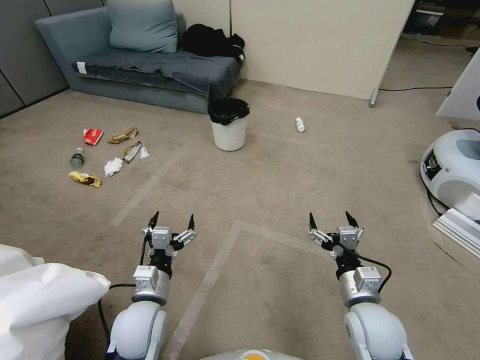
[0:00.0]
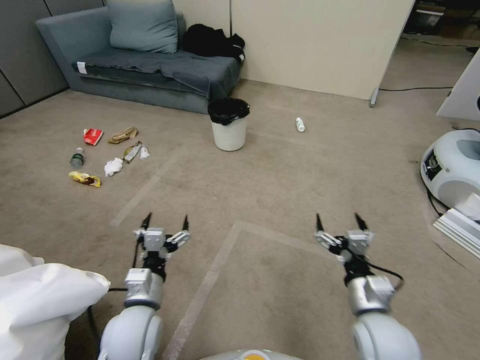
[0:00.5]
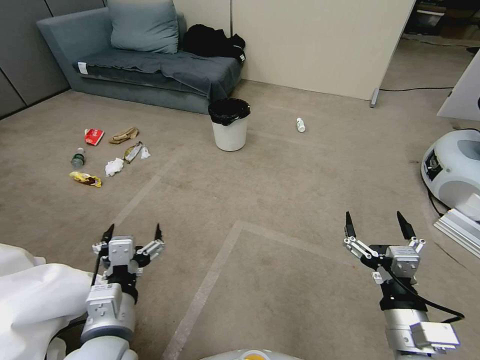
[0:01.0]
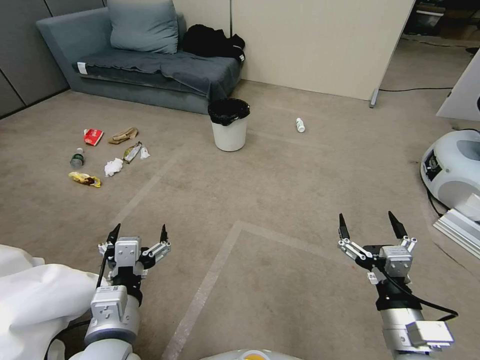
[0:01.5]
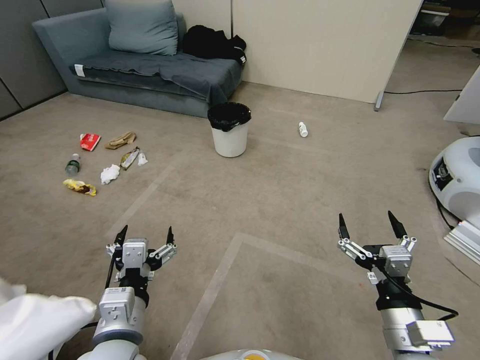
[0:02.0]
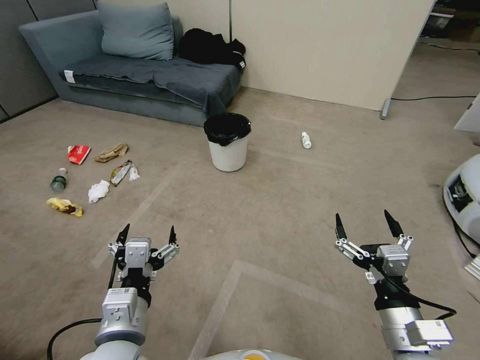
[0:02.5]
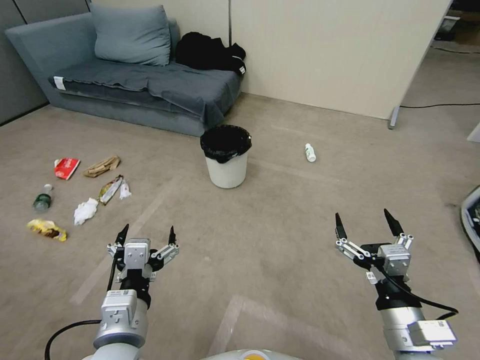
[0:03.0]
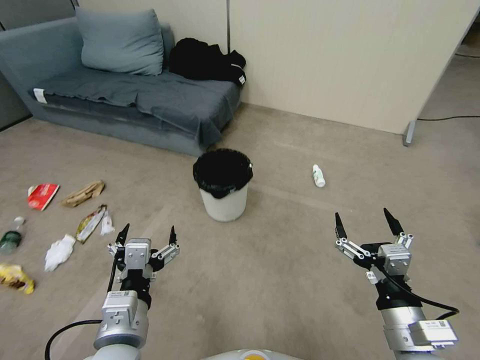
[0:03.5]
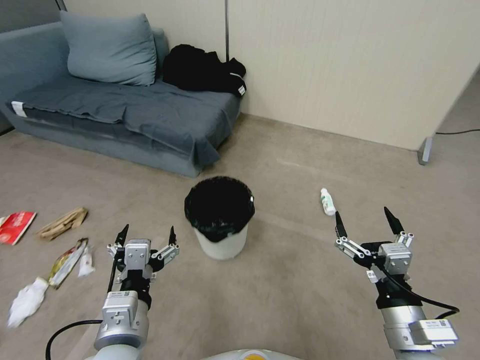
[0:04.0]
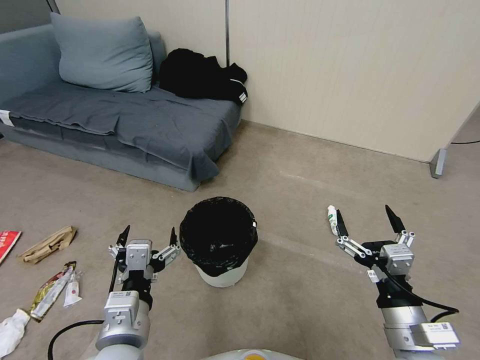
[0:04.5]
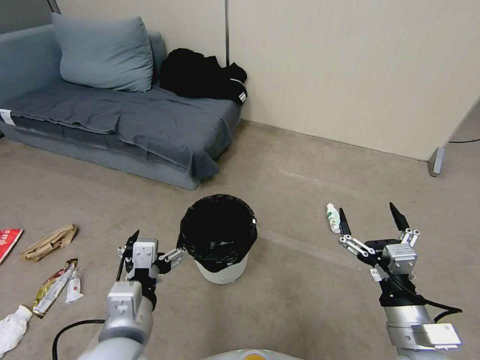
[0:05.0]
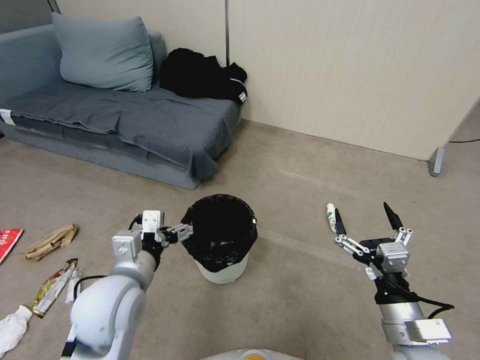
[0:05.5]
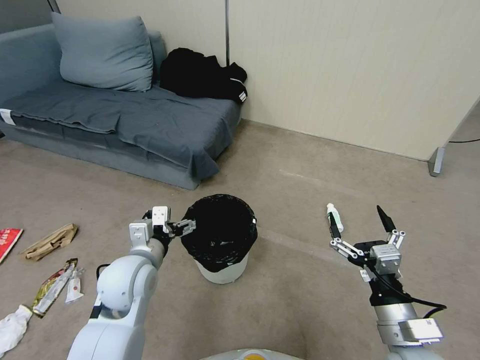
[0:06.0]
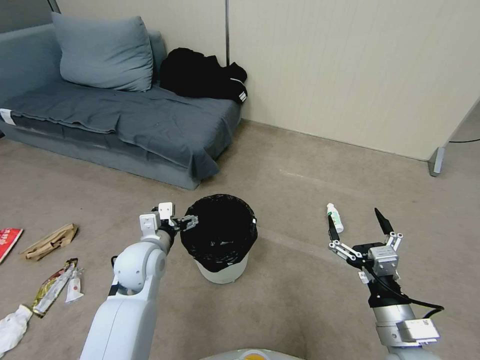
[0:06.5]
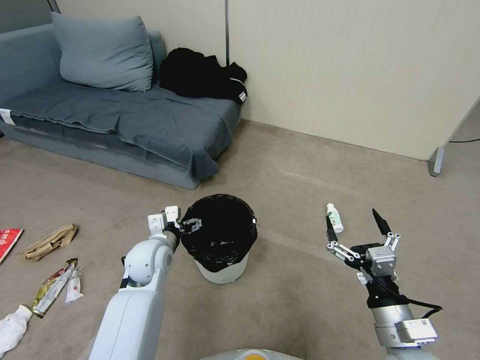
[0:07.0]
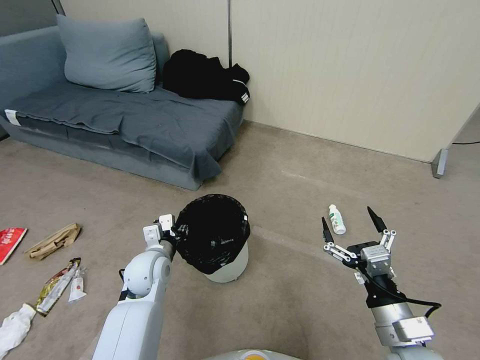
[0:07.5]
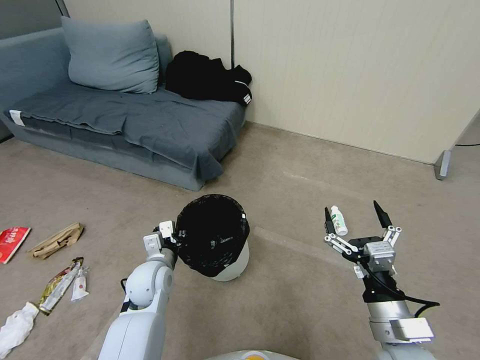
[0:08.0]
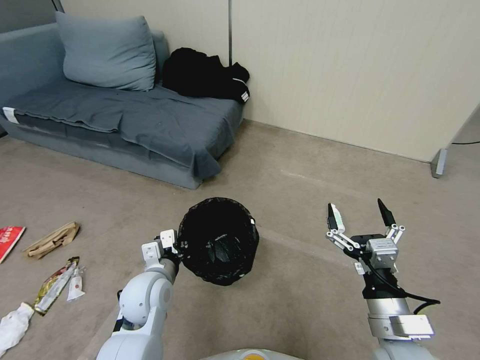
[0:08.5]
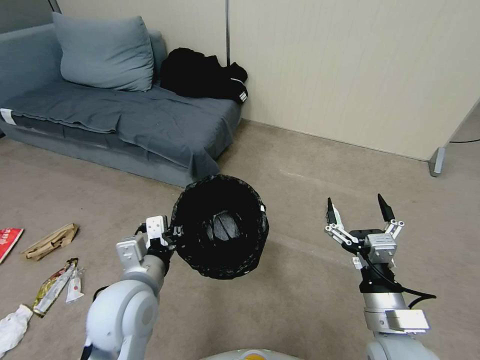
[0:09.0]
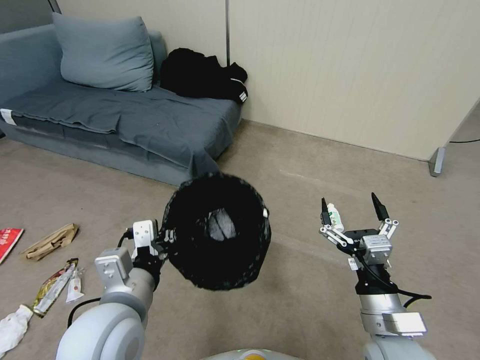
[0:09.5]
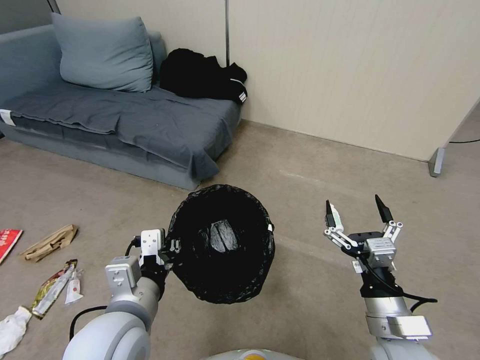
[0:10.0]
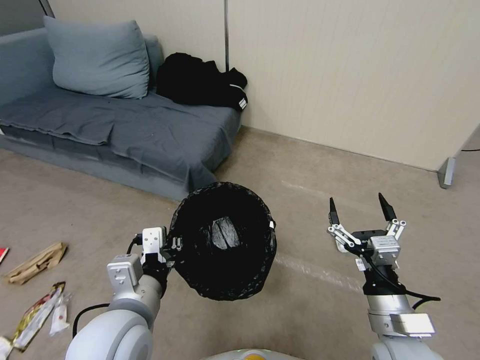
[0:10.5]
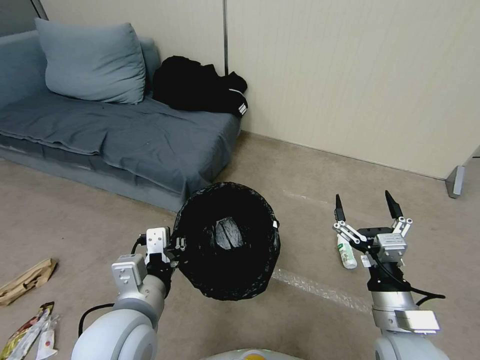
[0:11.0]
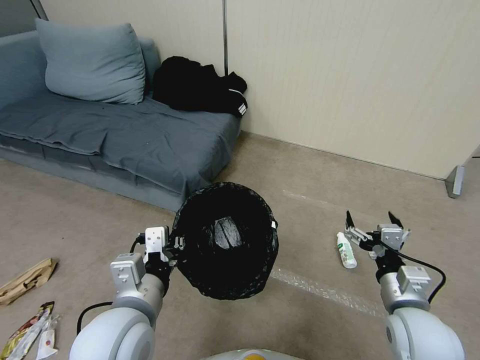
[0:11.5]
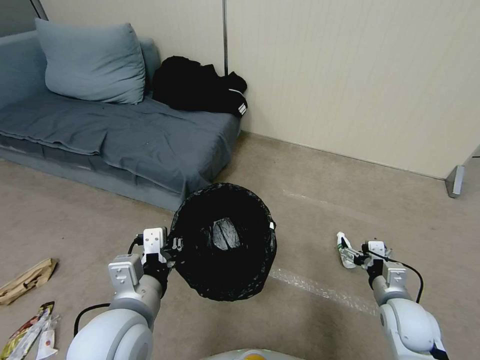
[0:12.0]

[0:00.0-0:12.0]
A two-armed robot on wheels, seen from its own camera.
Task of the whole recording: Pick up the trash bin, then pick up the garbage from the floor and place it into the trash bin.
0:04.0 to 0:06.0: The left gripper shifts about 15 cm forward.
0:06.0 to 0:08.0: The left gripper goes approximately 10 cm downward, and closes up.
0:08.0 to 0:10.0: The left gripper is displaced upward and backward by roughly 25 cm.
0:10.0 to 0:12.0: The right gripper is displaced downward, to the right and forward by some 15 cm.

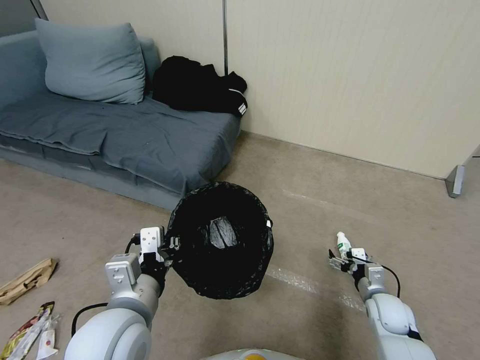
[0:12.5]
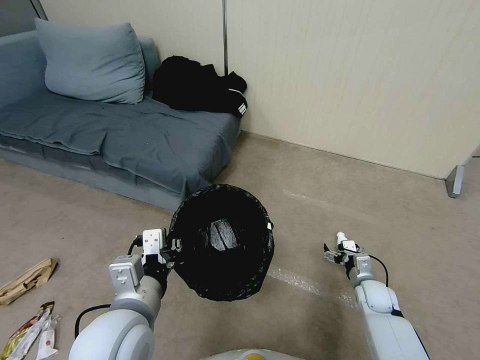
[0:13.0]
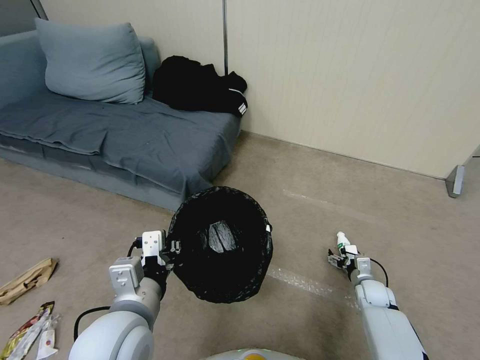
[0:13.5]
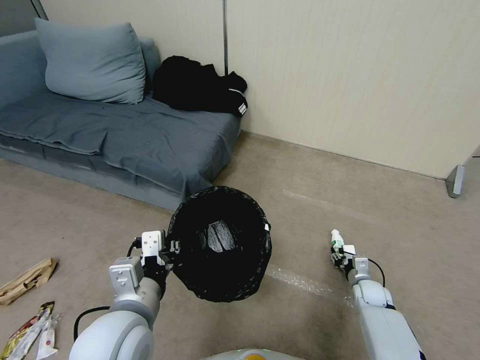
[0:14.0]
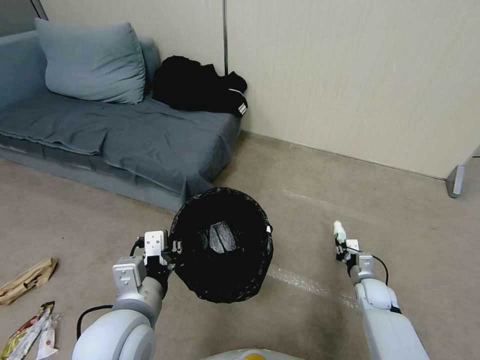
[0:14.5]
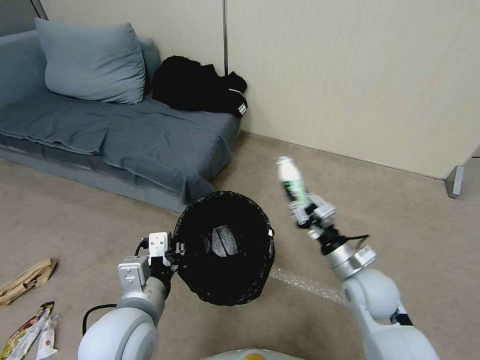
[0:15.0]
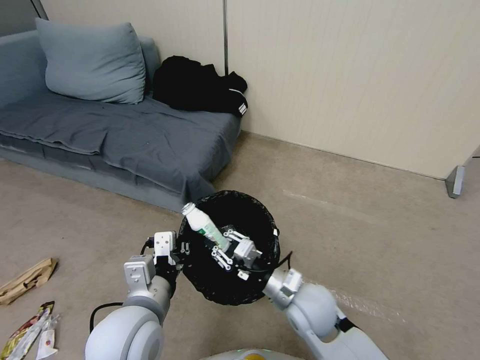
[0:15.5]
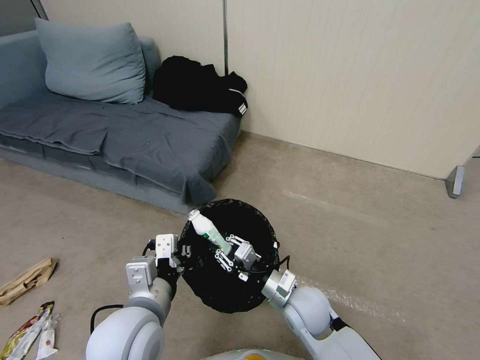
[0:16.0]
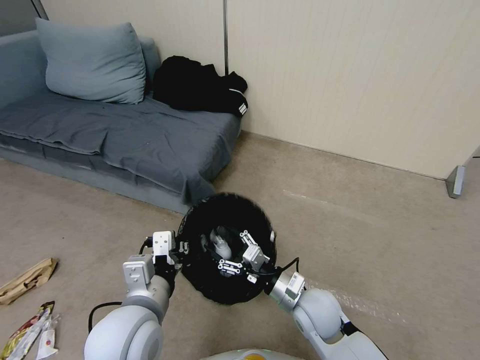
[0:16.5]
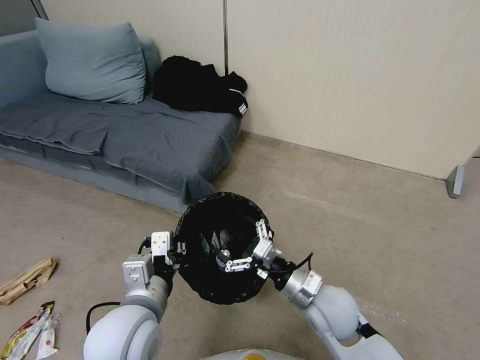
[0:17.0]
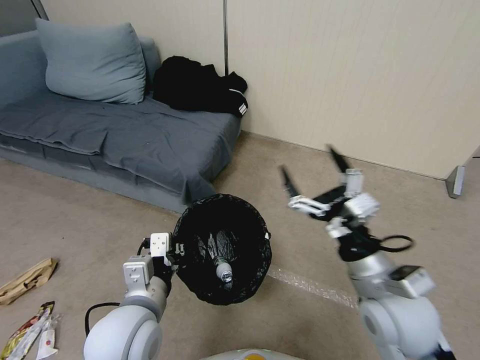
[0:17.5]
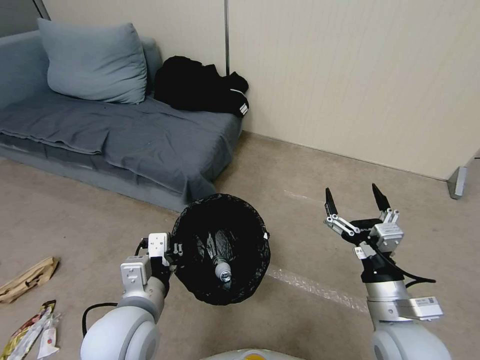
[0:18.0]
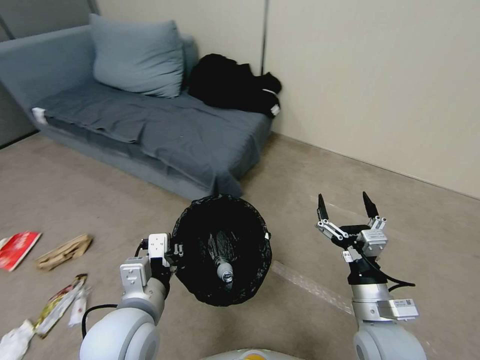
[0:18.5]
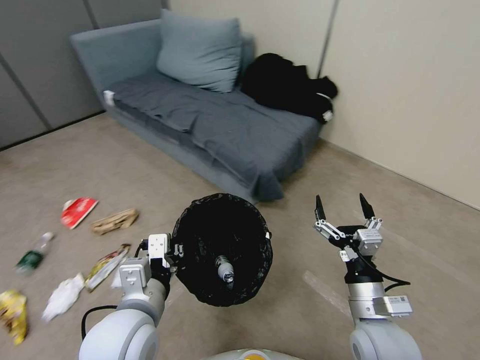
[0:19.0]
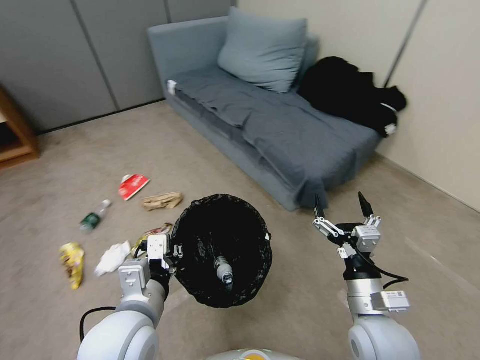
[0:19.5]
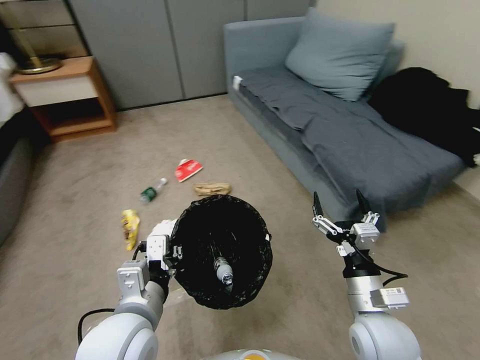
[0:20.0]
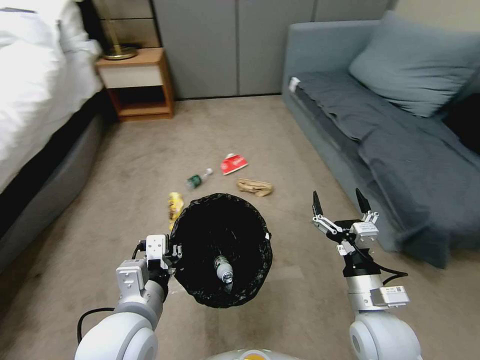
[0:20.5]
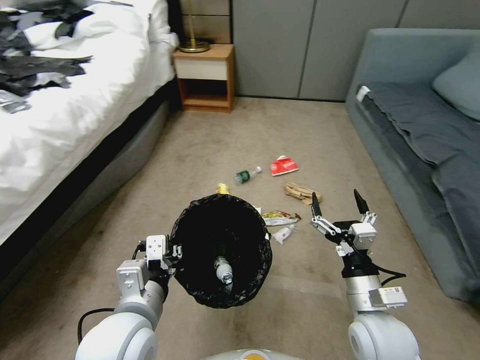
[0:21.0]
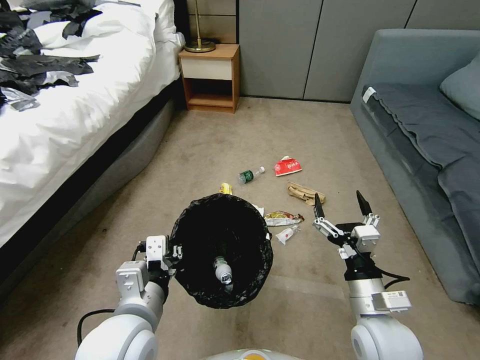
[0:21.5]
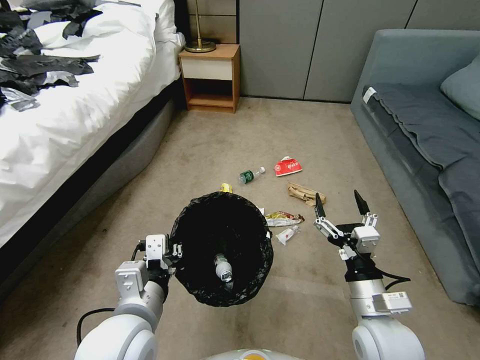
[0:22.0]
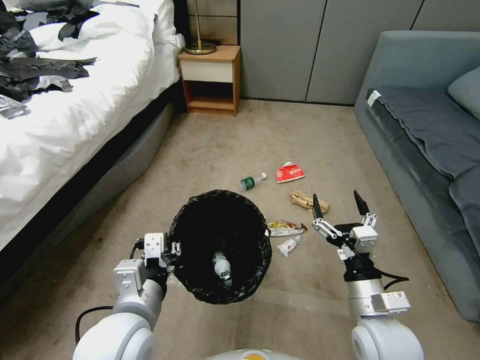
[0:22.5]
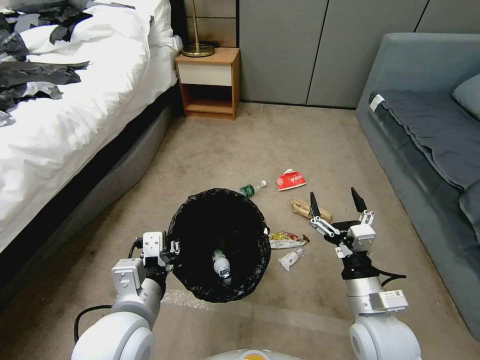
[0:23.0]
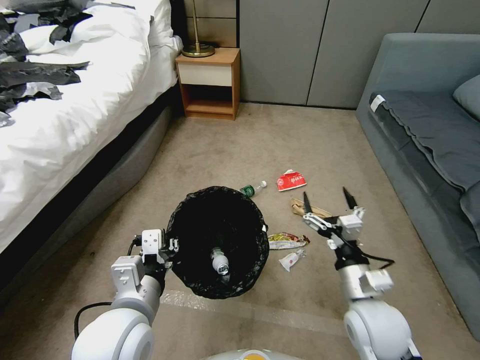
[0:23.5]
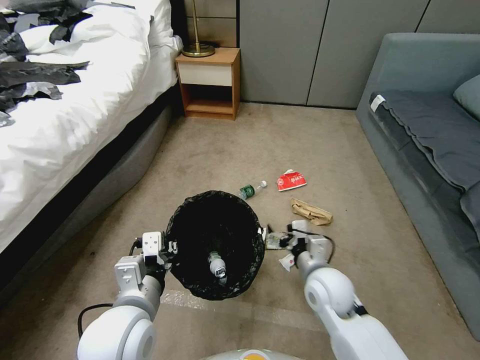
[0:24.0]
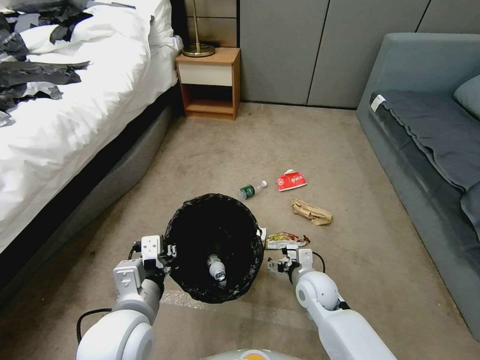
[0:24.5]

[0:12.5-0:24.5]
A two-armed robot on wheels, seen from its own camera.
Task of the whole recording: Pick up the trash bin, then pick up the garbage from the floor and place it into the trash bin.
0:12.5 to 0:14.5: The right gripper moves forward, roughly 5 cm, and closes up.
0:14.5 to 0:16.5: The right gripper shifts some 25 cm to the left and upward, and opens its fingers.
0:16.5 to 0:18.5: The right gripper heads to the right, upward and backward, covering roughly 15 cm, and opens.
0:22.5 to 0:24.5: The right gripper is displaced downward, forward and to the left by approximately 20 cm.

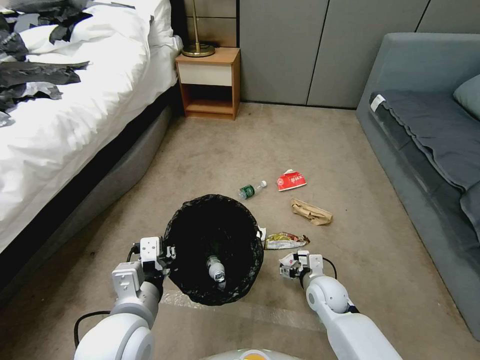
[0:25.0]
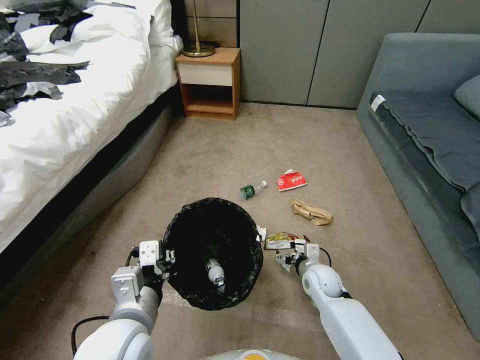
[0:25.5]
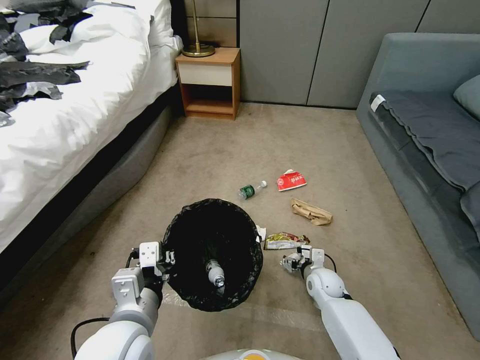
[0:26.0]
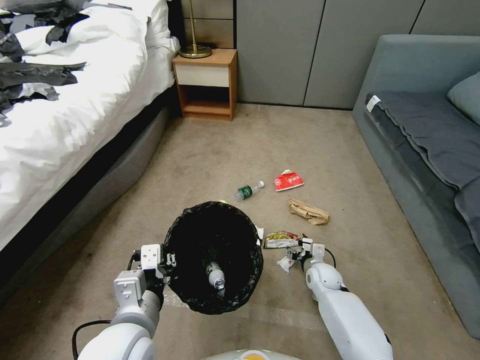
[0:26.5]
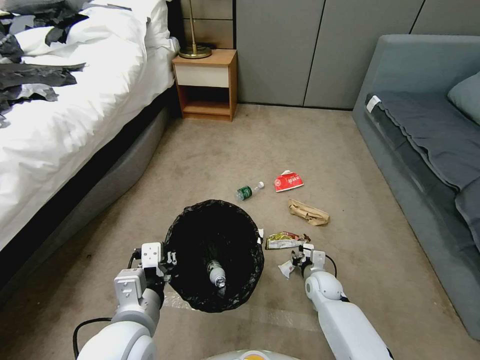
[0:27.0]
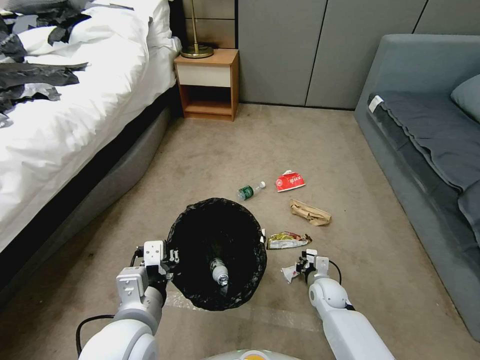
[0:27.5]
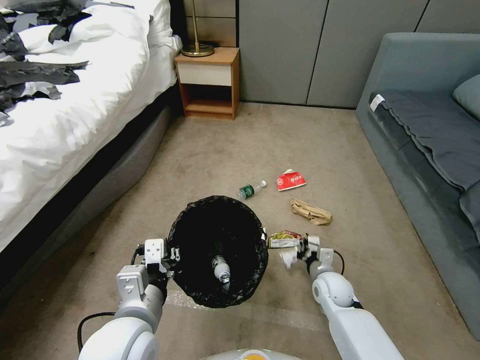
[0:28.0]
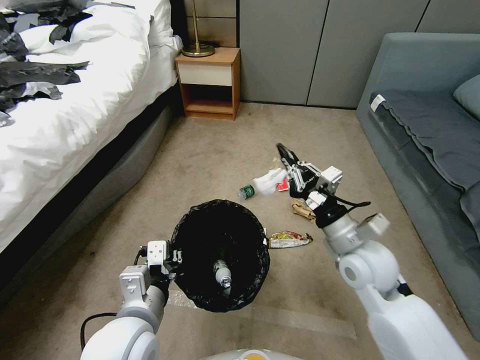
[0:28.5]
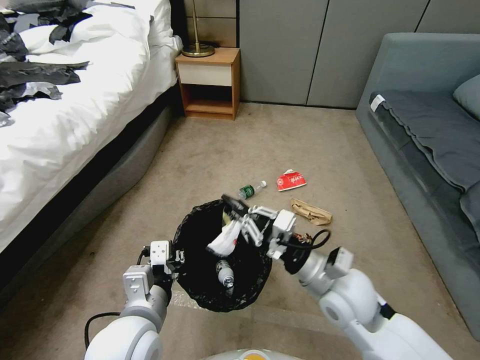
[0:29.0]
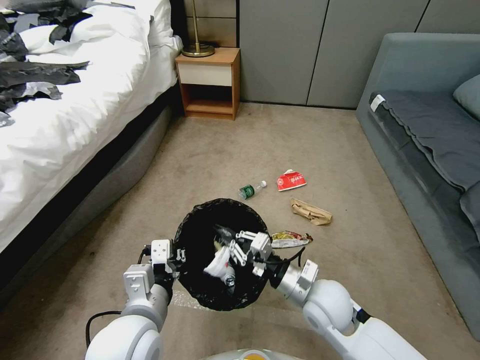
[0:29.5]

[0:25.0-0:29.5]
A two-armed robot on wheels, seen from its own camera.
Task of the whole recording: Pick up the trash bin, then pick up the garbage from the floor and place it into the trash bin.
0:25.0 to 0:27.0: The right gripper heads downward, covering approximately 5 cm, and closes.
0:27.0 to 0:29.5: The right gripper goes about 20 cm upward and backward, and closes up.
